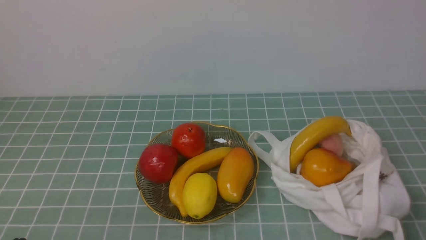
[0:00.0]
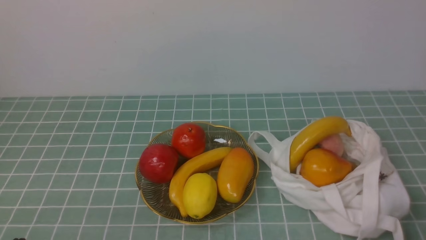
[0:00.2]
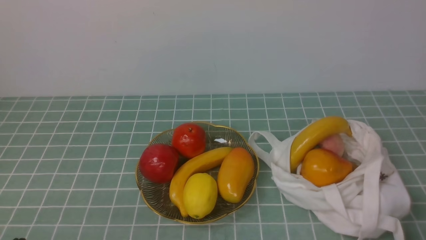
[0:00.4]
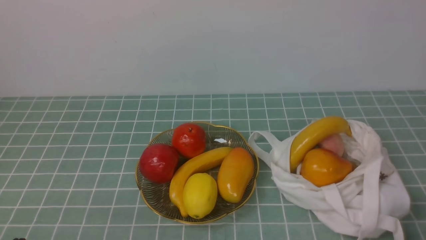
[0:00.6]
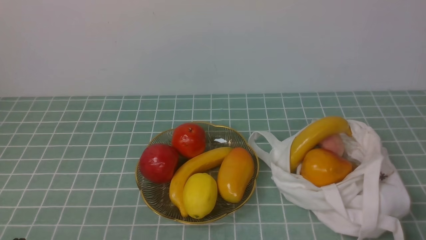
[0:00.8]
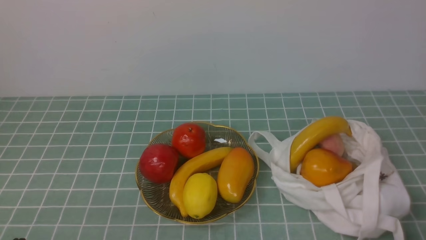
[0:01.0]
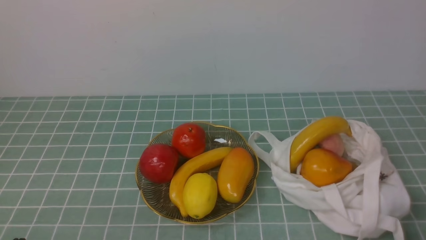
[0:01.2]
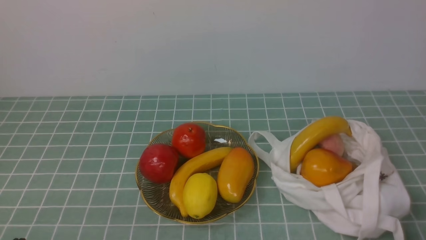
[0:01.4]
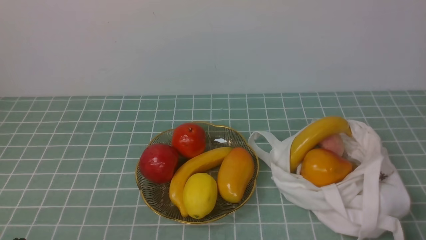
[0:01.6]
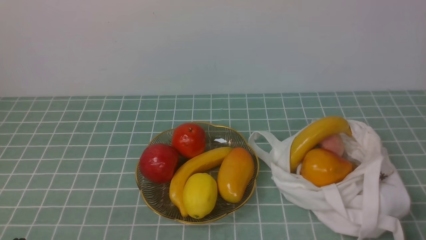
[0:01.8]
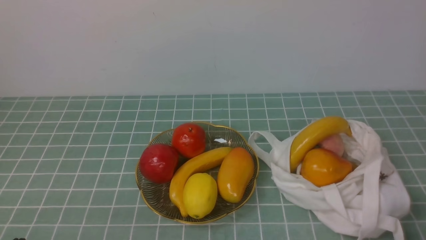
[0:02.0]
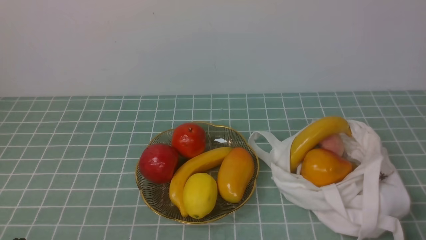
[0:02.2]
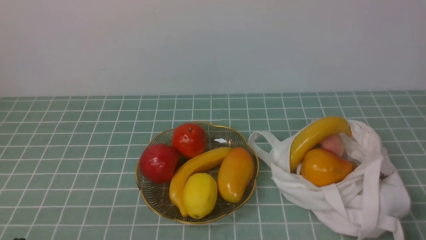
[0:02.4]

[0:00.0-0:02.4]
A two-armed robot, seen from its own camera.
0:01.2 to 0:02.4: The two grippers keep their place.

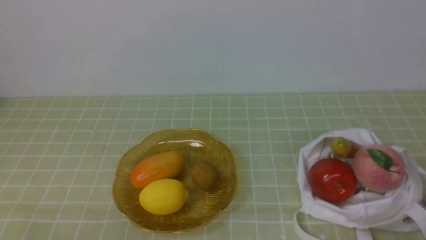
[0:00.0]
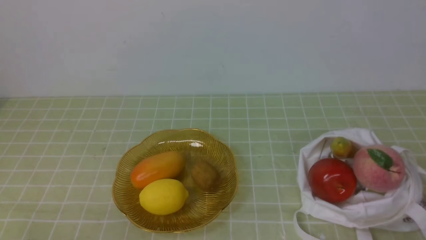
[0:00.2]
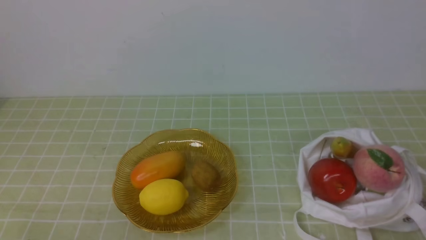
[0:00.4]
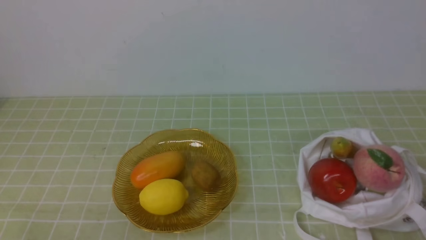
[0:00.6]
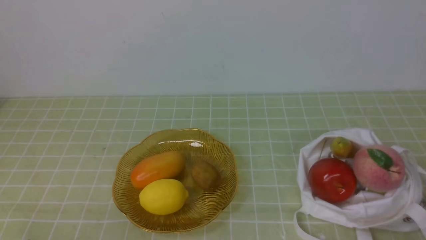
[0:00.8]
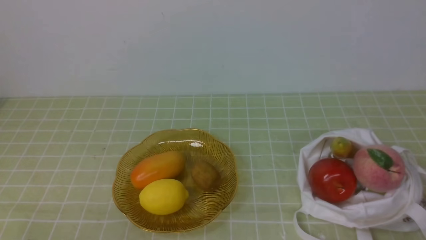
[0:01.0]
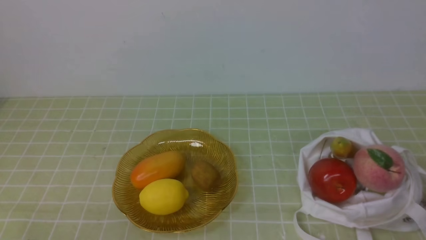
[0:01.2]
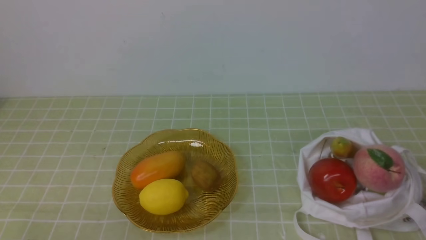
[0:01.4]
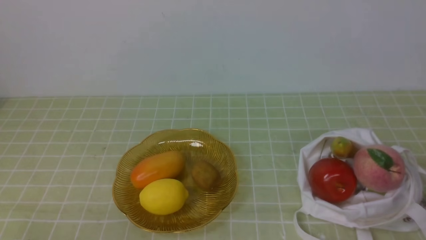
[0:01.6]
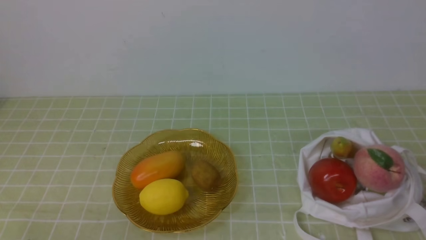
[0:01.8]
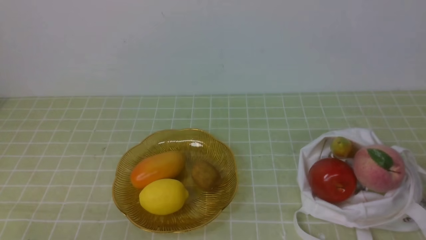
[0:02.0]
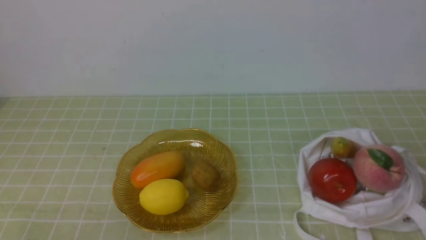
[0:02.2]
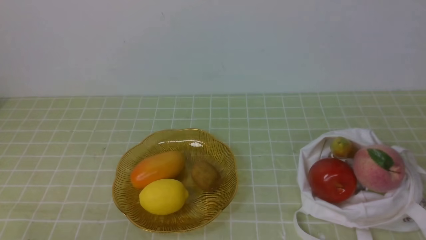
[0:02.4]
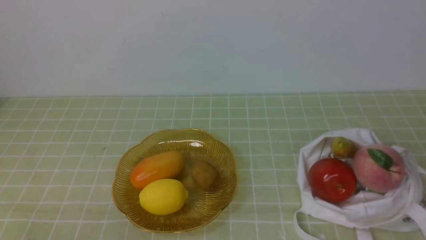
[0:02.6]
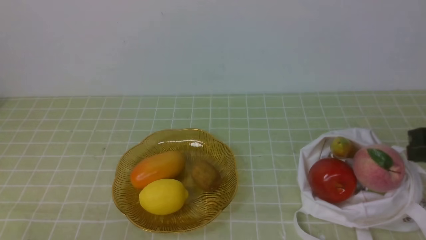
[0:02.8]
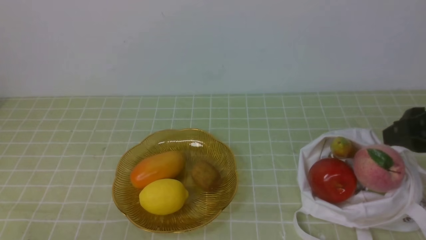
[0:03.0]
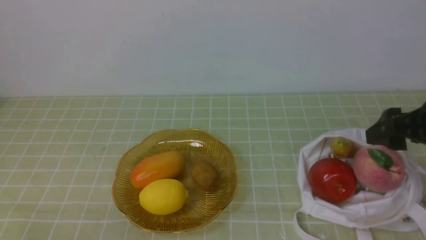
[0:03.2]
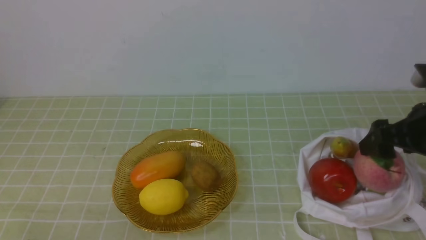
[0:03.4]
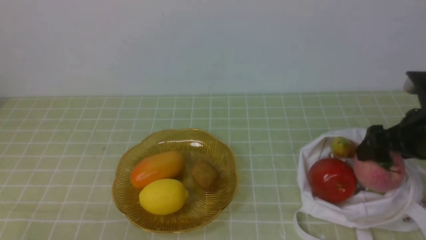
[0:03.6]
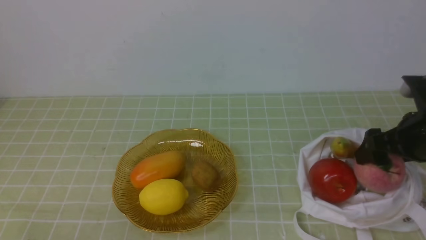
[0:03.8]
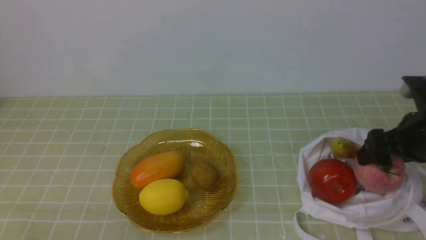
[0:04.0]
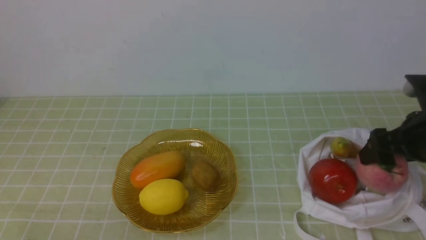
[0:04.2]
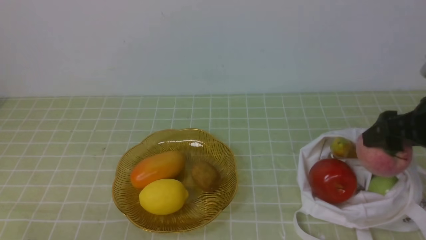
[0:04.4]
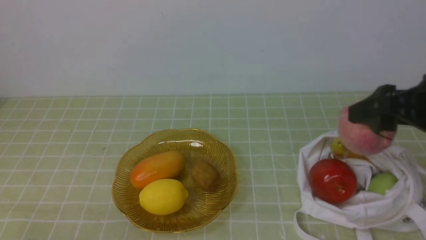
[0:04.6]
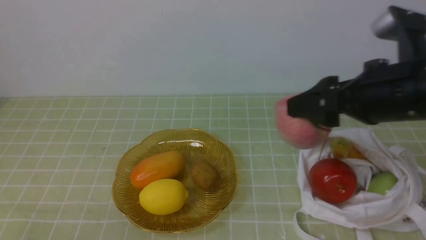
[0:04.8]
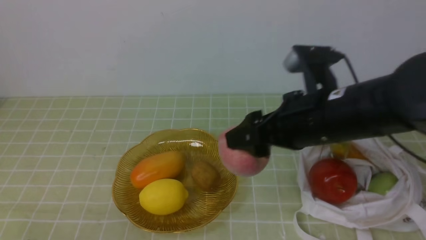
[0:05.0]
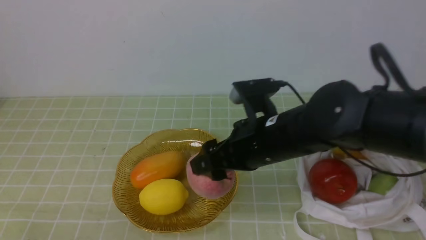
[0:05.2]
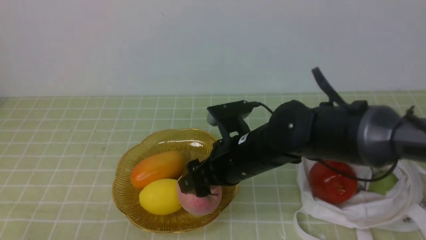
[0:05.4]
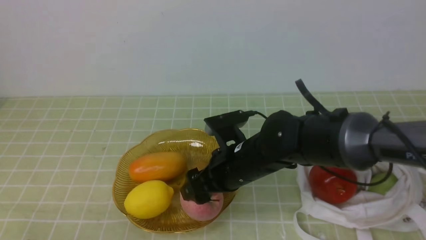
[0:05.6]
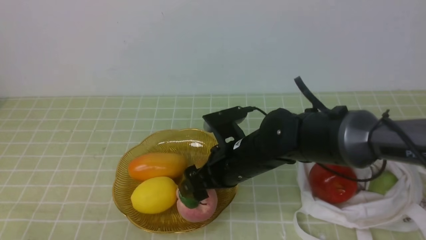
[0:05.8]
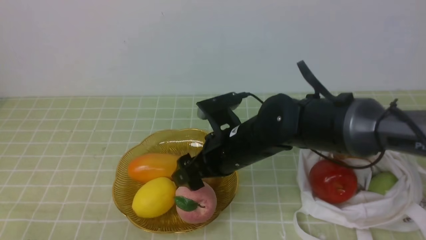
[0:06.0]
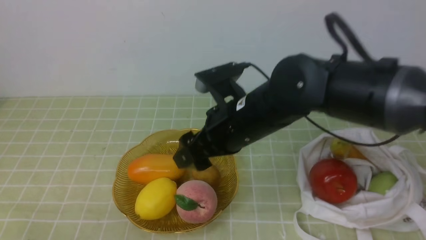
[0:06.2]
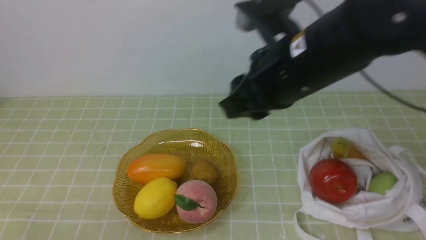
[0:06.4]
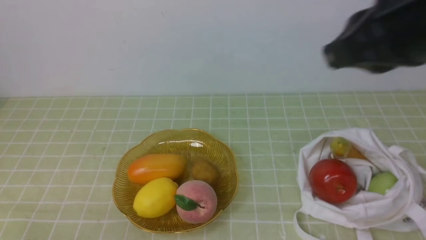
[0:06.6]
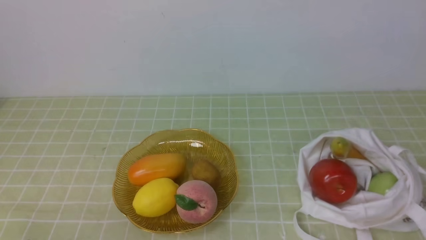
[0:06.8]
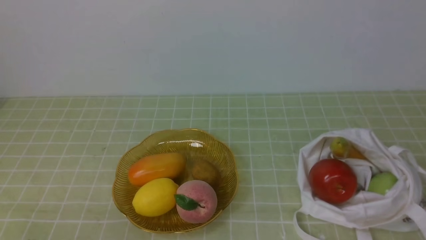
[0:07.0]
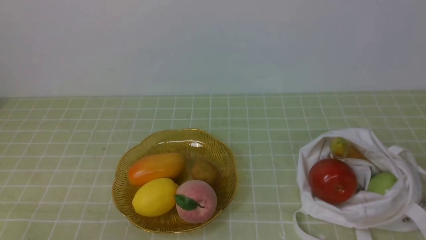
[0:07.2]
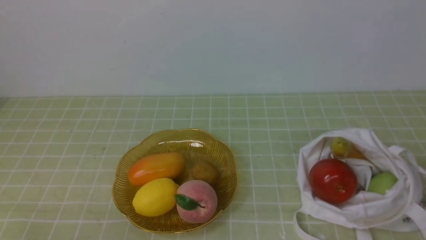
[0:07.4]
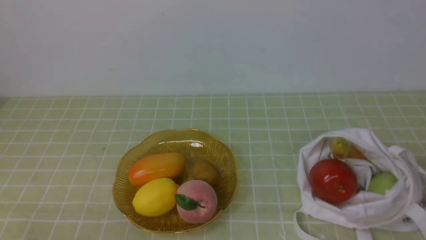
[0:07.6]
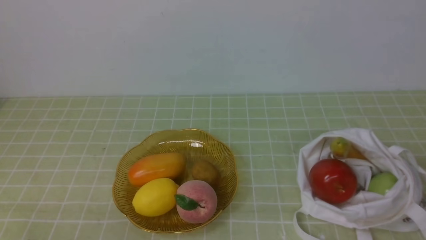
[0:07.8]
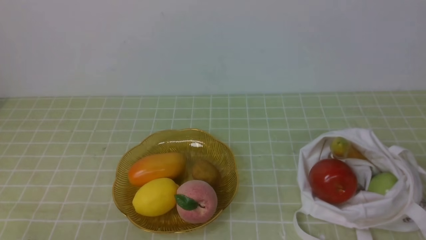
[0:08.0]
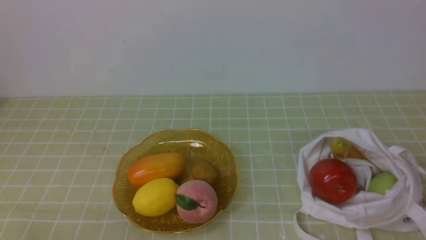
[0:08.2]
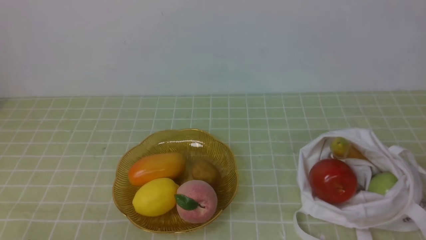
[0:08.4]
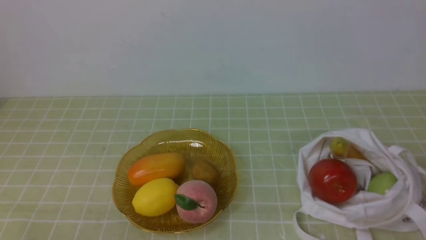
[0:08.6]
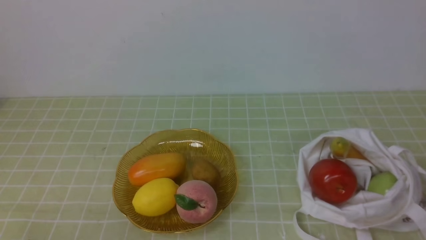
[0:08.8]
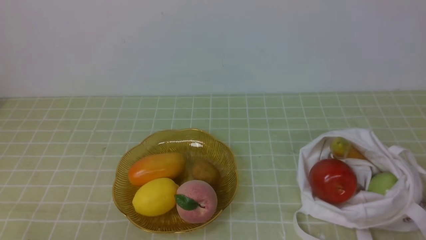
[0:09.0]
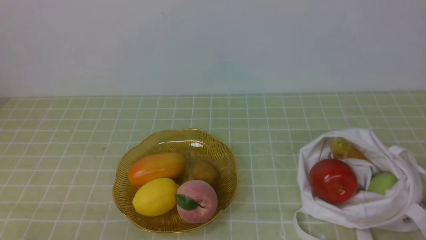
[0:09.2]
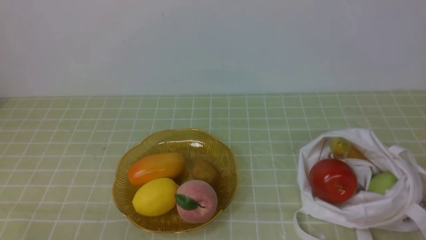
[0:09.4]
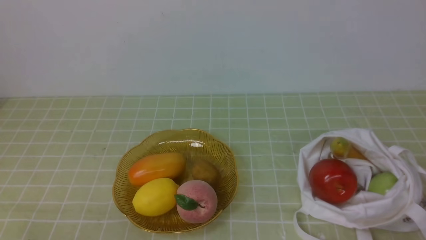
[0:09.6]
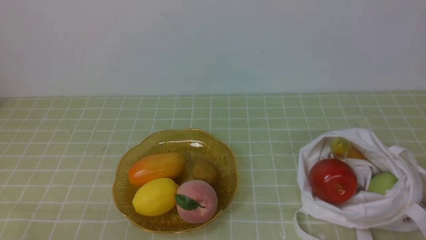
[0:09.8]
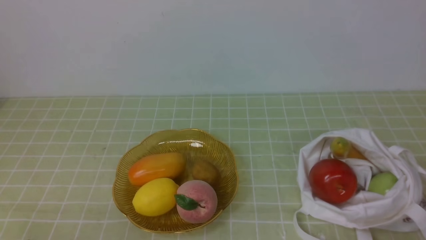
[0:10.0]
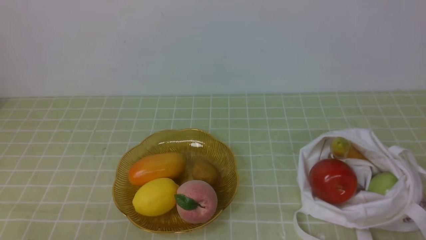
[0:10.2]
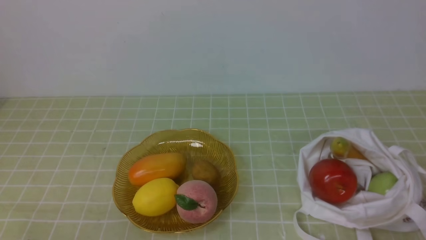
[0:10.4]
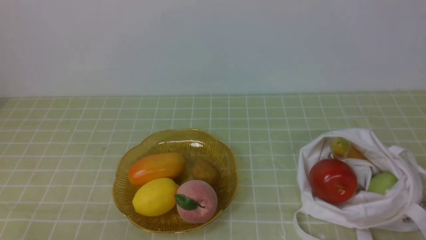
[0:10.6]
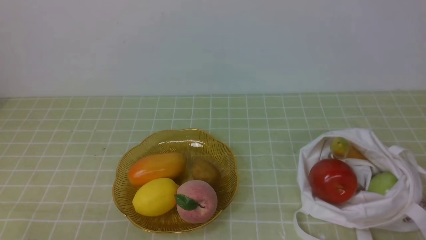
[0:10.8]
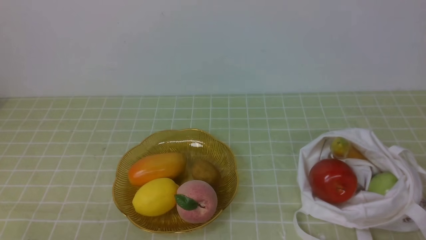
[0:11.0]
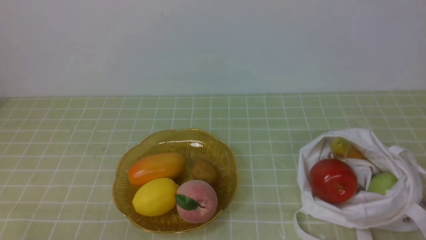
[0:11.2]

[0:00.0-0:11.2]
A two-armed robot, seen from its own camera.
Step, 0:00.0 to 0:04.4: use the right arm to grab a peach from the bag.
Step, 0:04.6 to 0:05.8: use the right arm to put the peach into the empty plate on the left.
0:01.6 to 0:03.2: The right gripper is displaced forward by about 20 cm, and opens its fingers.
0:03.2 to 0:04.8: The right gripper is displaced to the left by about 10 cm.
0:04.8 to 0:06.4: The right gripper moves to the left, roughly 10 cm, goes downward and returns, about 15 cm each way, and closes its fingers.
0:06.4 to 0:08.0: The right gripper travels backward and to the right by about 30 cm.
0:09.6 to 0:11.2: Both grippers stay put.
